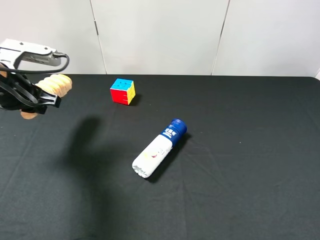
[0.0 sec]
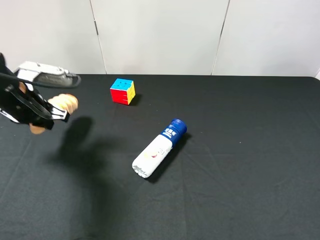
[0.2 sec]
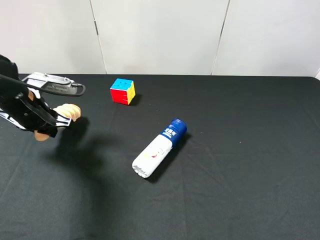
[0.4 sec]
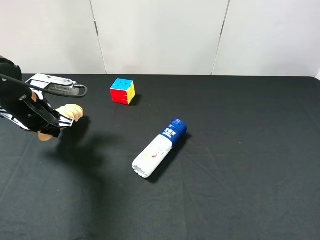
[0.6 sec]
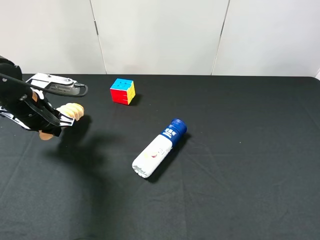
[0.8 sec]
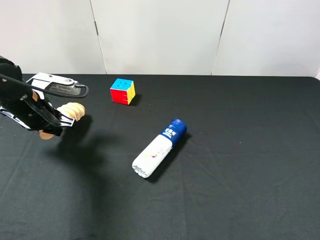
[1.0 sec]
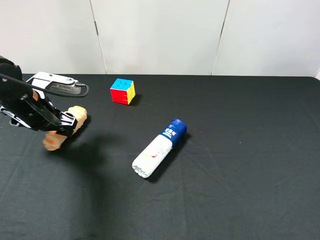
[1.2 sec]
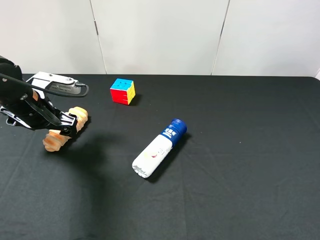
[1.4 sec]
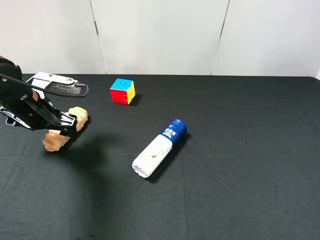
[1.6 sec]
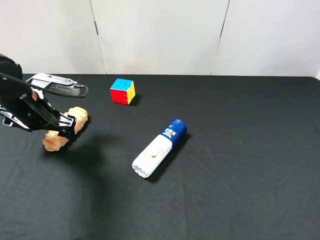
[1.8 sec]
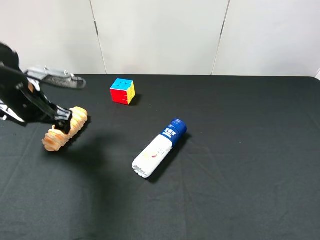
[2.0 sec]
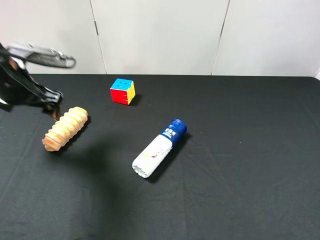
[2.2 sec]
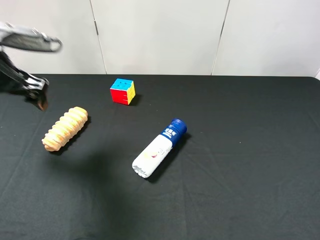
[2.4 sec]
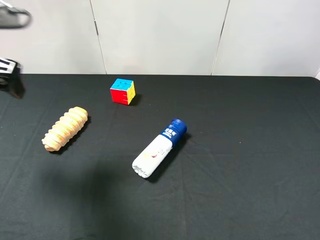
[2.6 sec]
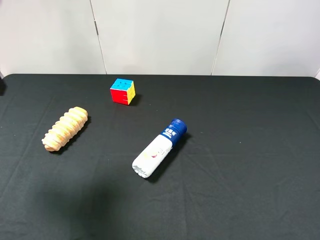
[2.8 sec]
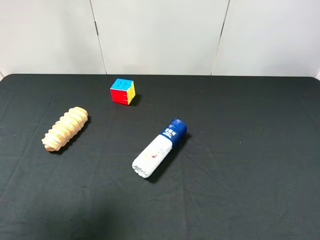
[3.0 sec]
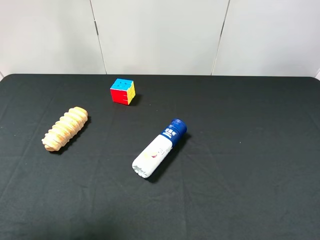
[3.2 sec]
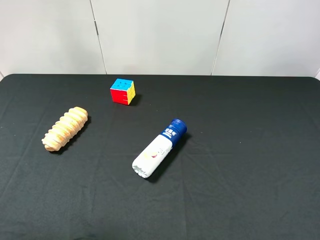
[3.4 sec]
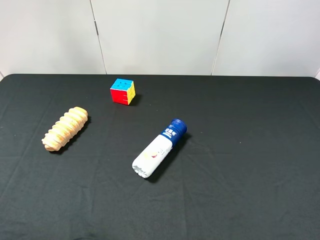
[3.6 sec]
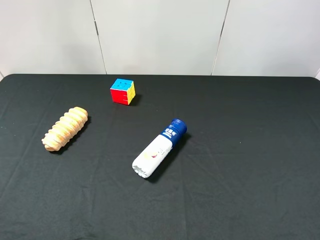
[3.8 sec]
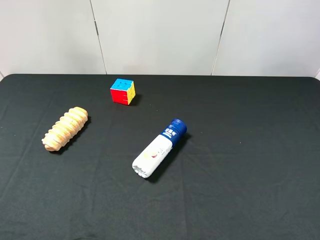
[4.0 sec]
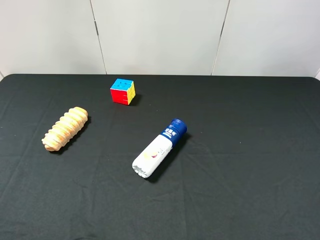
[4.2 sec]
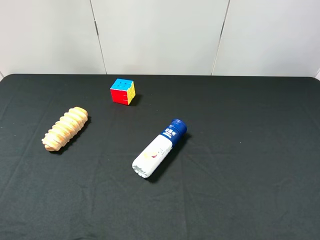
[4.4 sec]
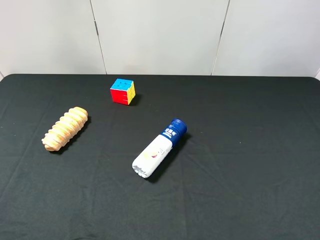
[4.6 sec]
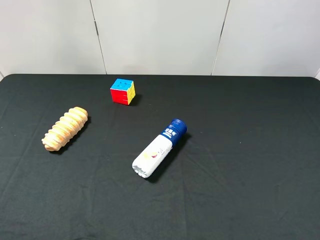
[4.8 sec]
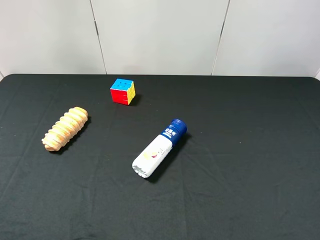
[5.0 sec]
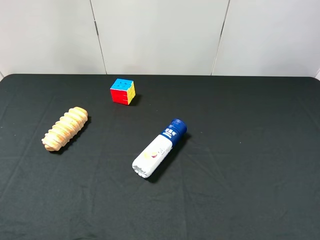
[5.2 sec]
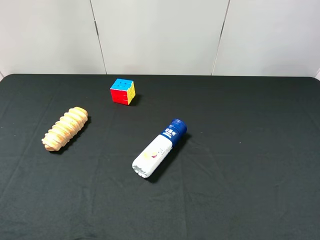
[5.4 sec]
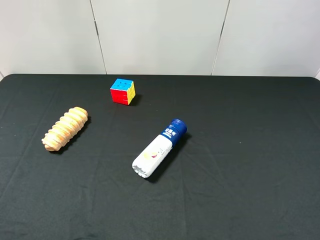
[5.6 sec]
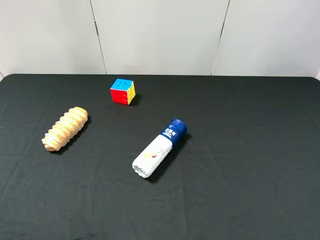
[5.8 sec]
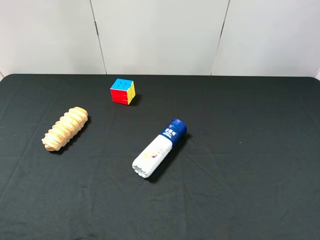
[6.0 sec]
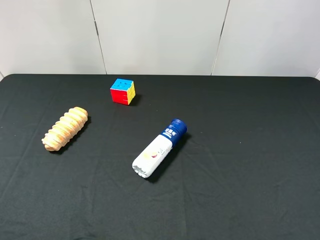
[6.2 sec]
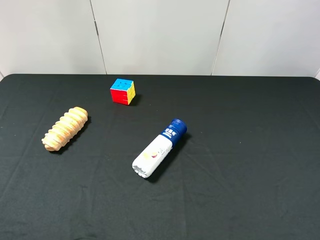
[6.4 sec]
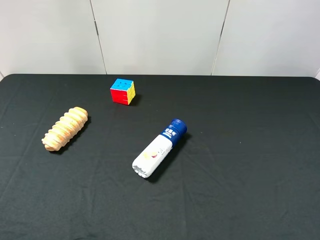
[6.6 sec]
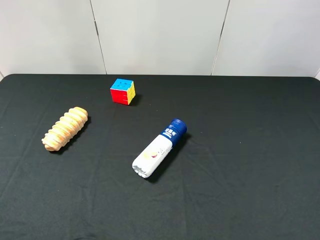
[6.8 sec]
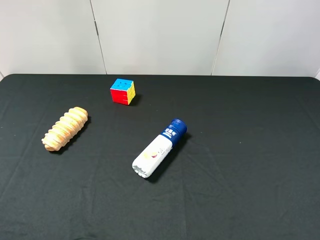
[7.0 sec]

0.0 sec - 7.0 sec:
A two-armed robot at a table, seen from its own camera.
Task of the whole recording: use the right gripper to pick up the item and transfer it from the right gripper to the left gripper.
0.0 sec - 1.4 sec: The left gripper shifts some 5 cm downward, and opens up.
1.4 sec - 2.8 sec: The left gripper shifts about 20 cm upward and backward.
2.8 sec - 4.2 sec: The left gripper goes some 20 cm backward.

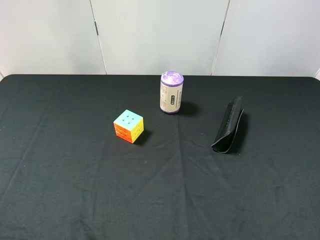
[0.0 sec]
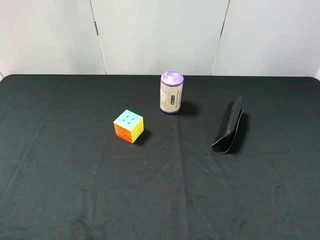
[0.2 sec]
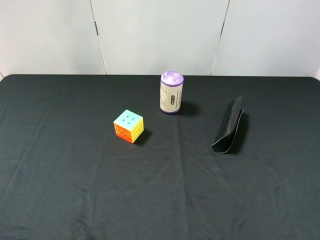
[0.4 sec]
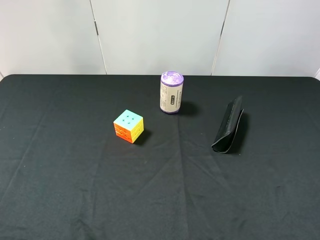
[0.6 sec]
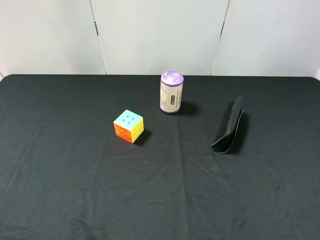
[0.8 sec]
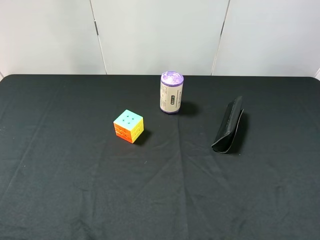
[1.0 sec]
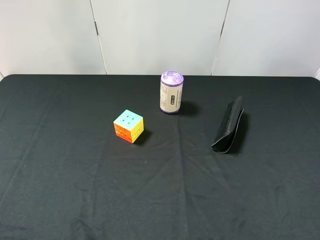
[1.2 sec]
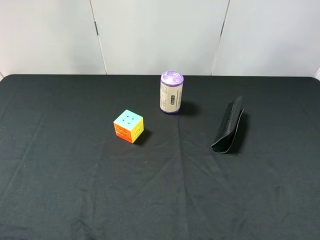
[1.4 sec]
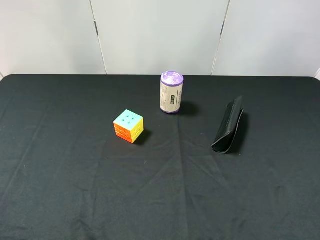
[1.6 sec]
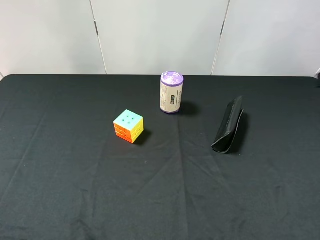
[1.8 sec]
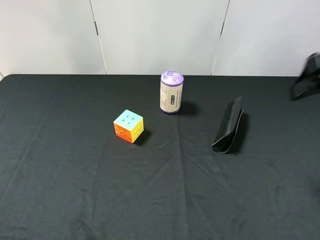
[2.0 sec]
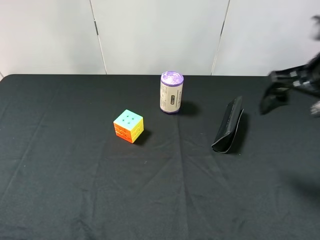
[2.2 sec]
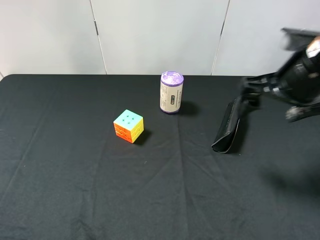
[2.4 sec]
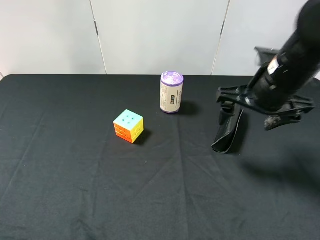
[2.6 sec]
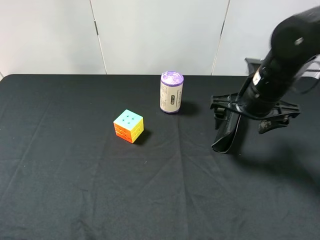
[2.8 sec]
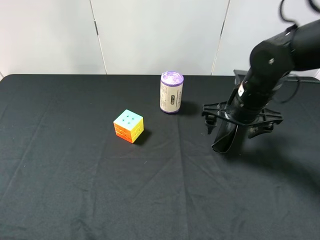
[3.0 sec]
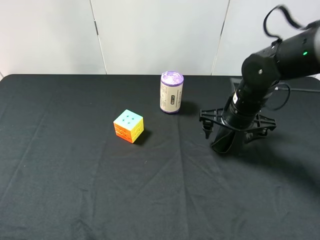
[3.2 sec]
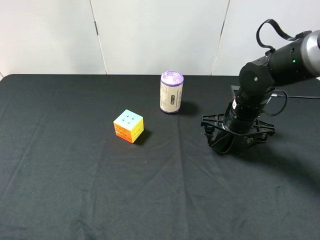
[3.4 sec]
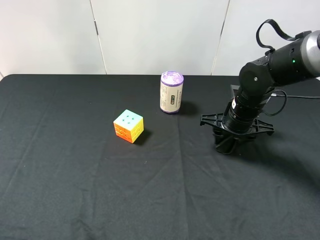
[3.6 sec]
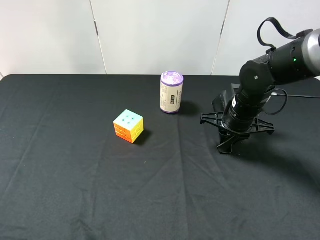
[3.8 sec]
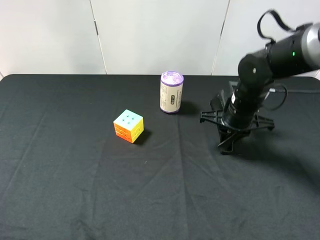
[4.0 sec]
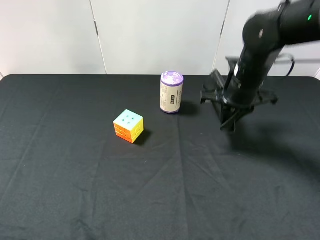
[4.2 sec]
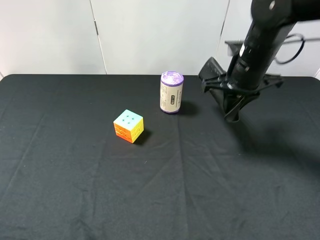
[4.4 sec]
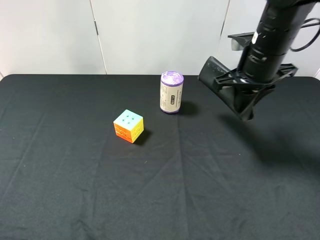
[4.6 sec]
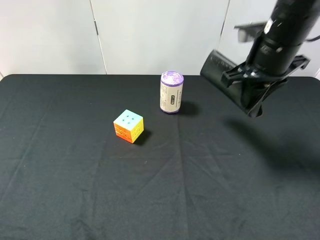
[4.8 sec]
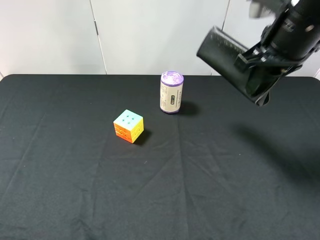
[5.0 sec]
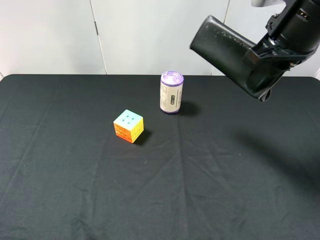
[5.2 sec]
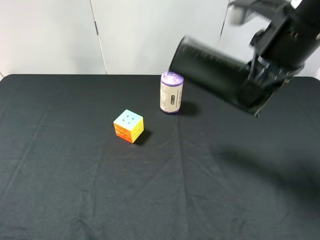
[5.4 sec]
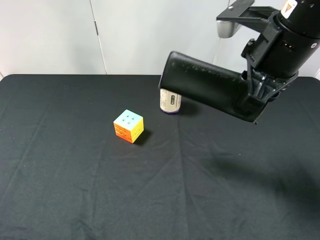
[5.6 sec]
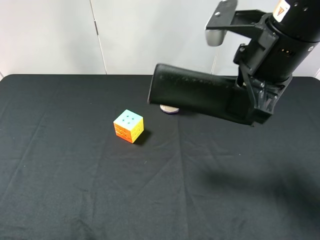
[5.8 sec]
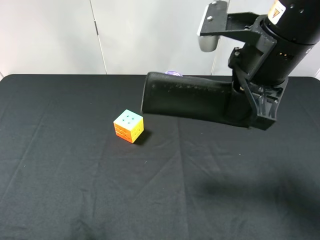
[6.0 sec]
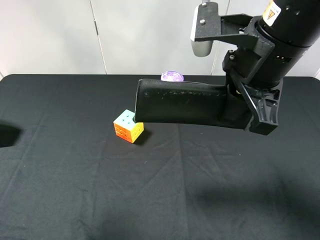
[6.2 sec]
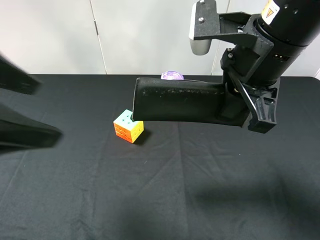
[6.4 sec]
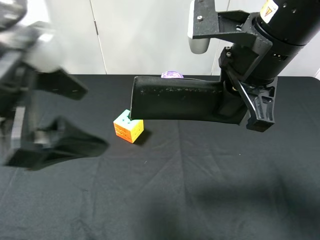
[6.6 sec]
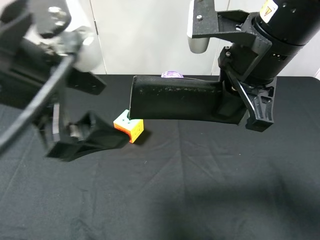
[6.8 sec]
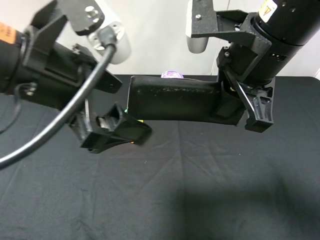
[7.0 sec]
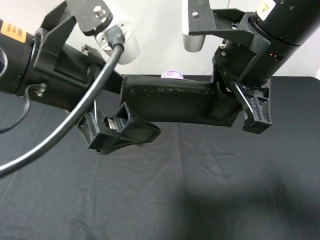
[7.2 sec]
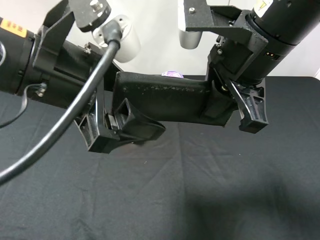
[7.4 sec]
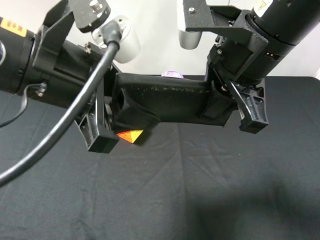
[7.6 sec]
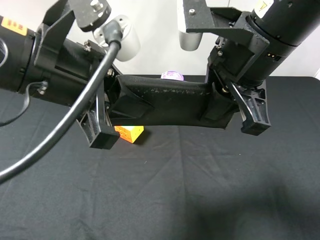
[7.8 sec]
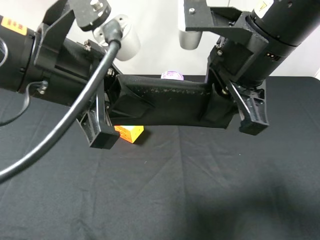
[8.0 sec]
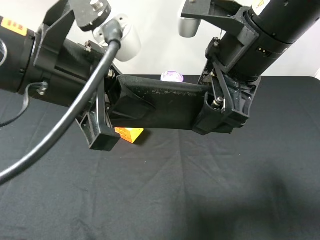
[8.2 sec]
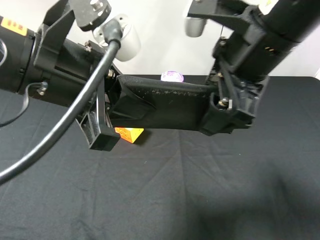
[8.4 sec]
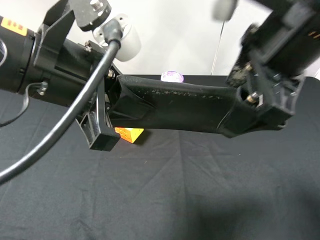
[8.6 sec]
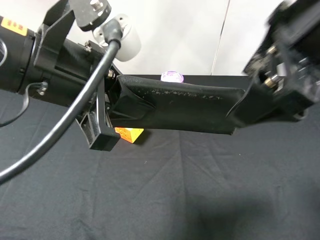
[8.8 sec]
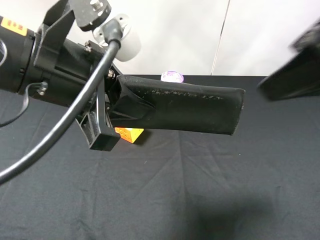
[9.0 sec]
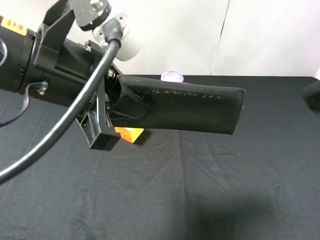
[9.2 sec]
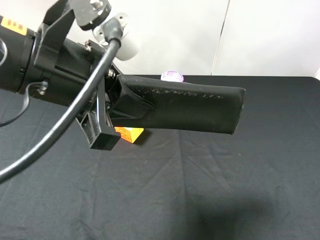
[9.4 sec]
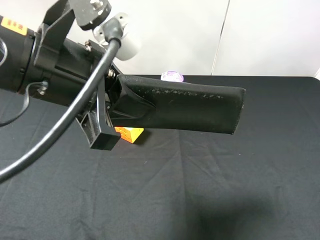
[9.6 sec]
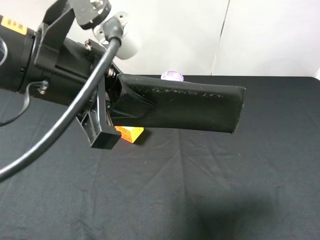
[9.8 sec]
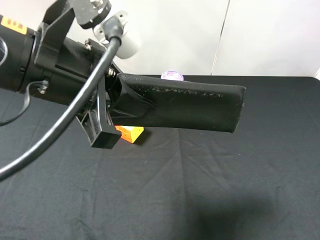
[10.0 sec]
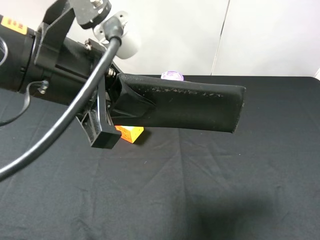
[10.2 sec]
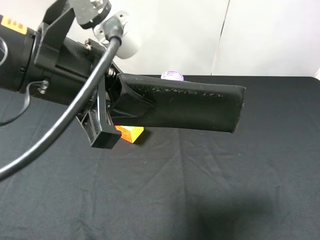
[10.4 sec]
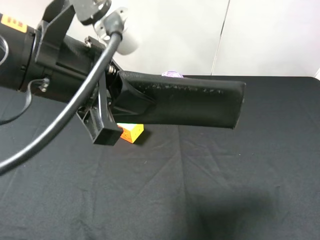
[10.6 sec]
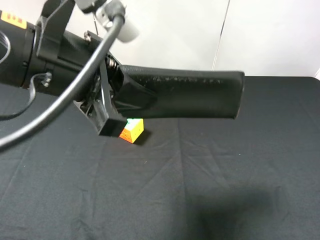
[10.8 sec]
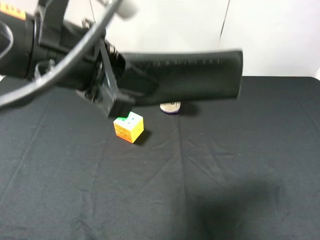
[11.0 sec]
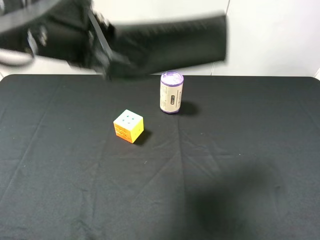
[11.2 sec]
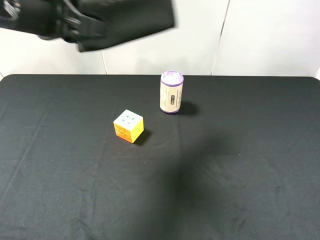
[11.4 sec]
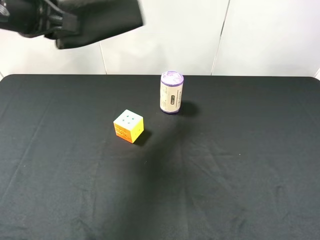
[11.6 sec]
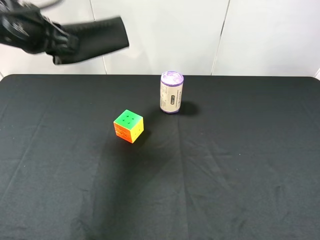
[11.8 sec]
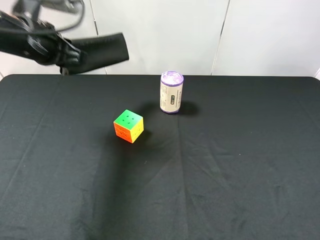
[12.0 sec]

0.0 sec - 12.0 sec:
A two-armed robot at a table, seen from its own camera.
Task of the whole recording: use the right gripper to pick up the item and transfer it from the right gripper to the left gripper.
Step, 0.0 sec - 3.8 sec: Use the right gripper to grab the eyeglass case on the right side of the table.
Step, 4.0 sec - 8.4 sec: Pass the eyeglass case to the left gripper.
1.6 sec - 3.0 sec: The right gripper goes about 30 cm downward, forward and to the left.
3.0 sec - 4.4 sec: The right gripper moves upward, some 5 cm, and closes its fingers.
4.4 sec - 6.0 sec: The left gripper is displaced forward and upward by roughly 10 cm. The right gripper heads backward and upward, covering approximately 15 cm.
6.0 sec - 7.6 sec: The left gripper shifts about 20 cm to the right and forward, and closes up.
7.6 sec - 9.0 sec: The right gripper moves to the right, upward and backward, about 15 cm, and opens.
9.0 sec - 10.4 sec: The right gripper heads downward, backward and to the right, covering roughly 20 cm.
10.4 sec - 12.0 sec: The left gripper moves forward and to the left, some 20 cm.

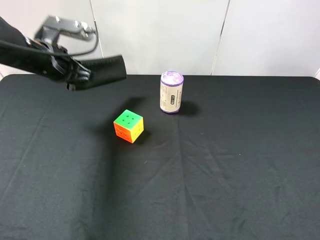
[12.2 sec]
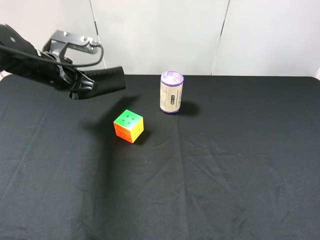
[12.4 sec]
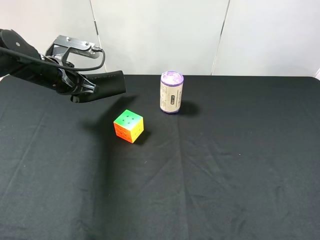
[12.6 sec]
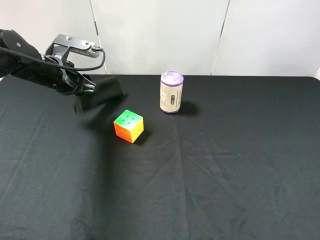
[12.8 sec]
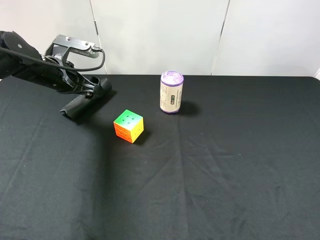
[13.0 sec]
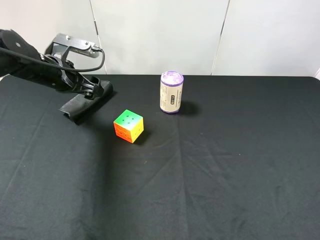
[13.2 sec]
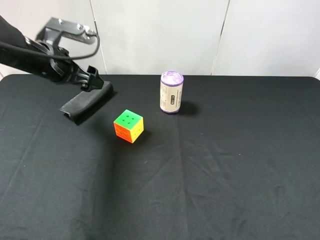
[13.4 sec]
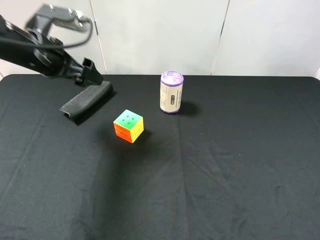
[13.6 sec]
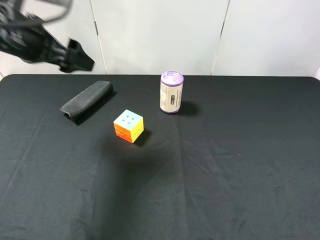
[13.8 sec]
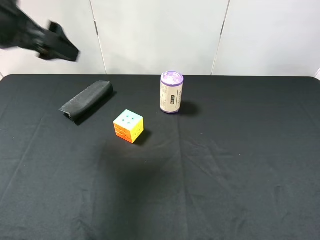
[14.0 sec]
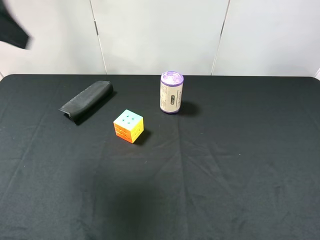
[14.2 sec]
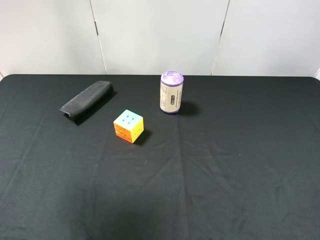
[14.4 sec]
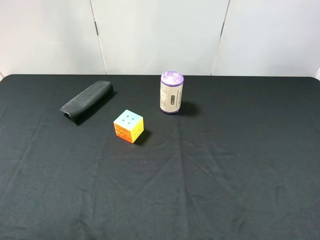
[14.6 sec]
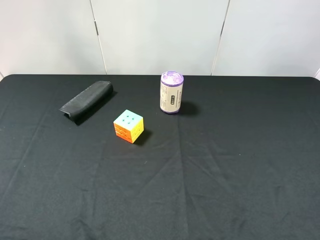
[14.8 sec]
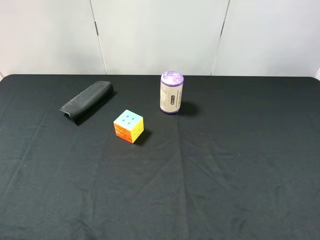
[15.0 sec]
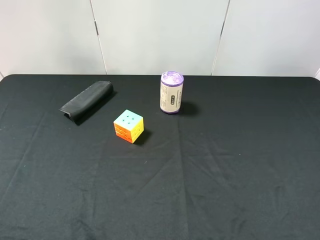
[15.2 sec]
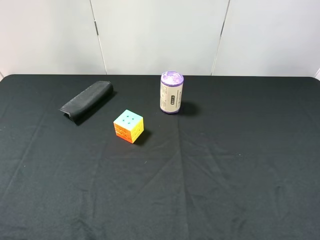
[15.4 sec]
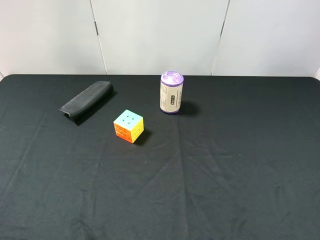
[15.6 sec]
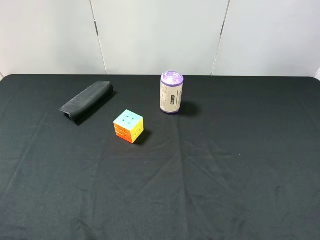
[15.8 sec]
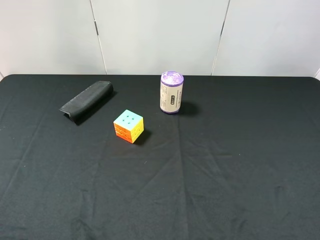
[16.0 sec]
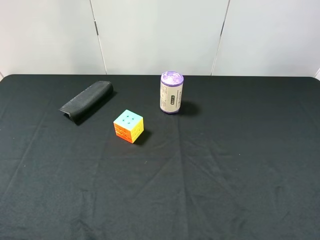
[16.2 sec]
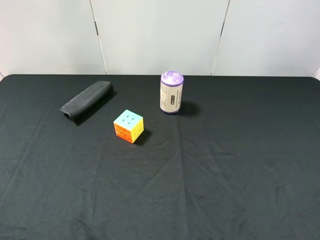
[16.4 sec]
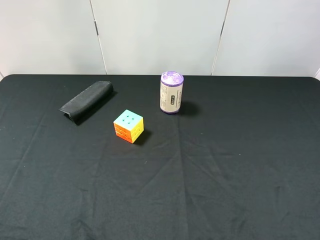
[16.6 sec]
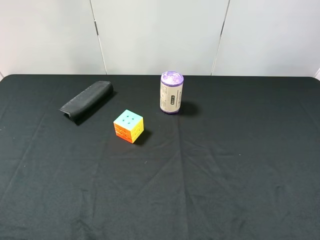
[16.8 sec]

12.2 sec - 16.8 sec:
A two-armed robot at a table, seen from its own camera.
Task of the whole recording: use the right gripper to pick up the item and transfer it from the right gripper to the left gripper.
12.2 sec - 13.8 sec: The left gripper goes roughly 10 cm upward and backward, and opens up.
13.8 sec - 15.2 sec: The left gripper moves backward, about 30 cm.
